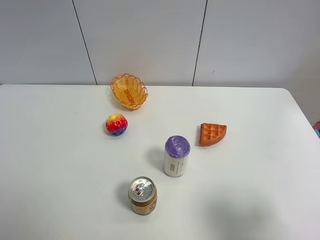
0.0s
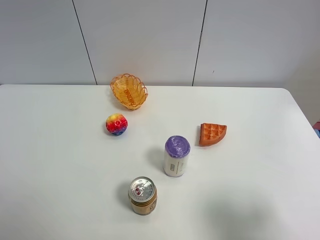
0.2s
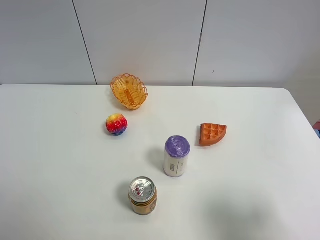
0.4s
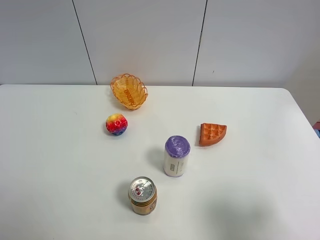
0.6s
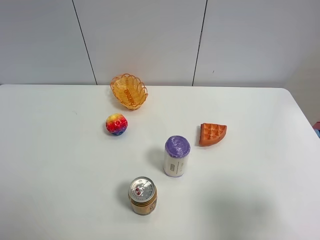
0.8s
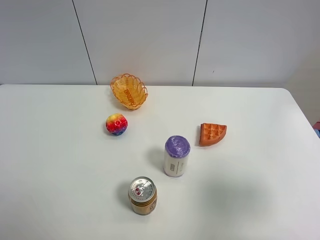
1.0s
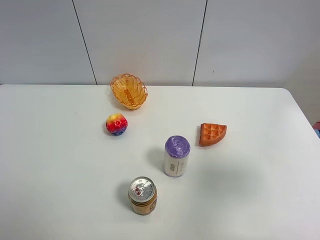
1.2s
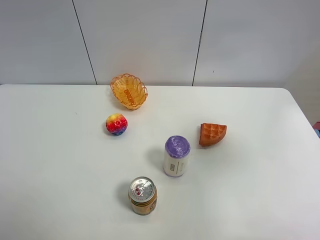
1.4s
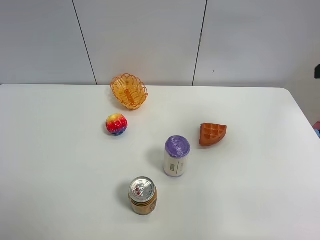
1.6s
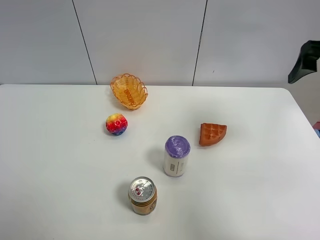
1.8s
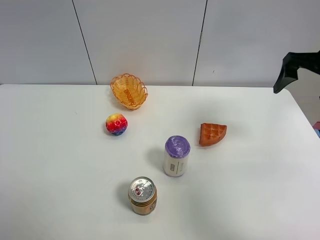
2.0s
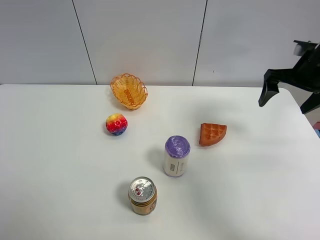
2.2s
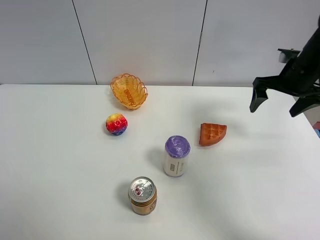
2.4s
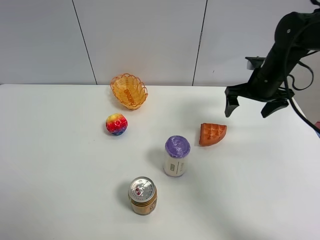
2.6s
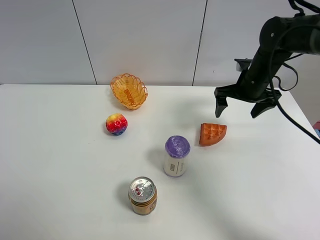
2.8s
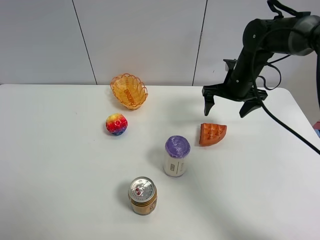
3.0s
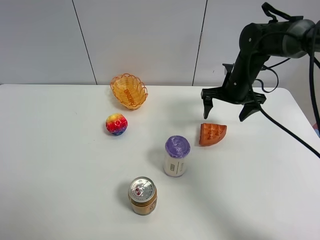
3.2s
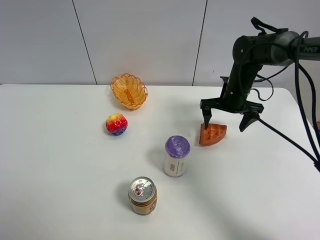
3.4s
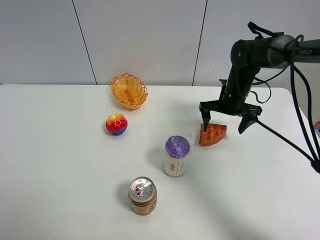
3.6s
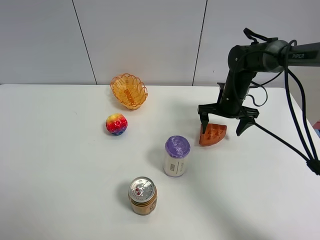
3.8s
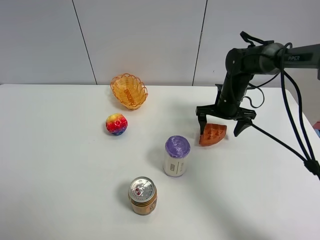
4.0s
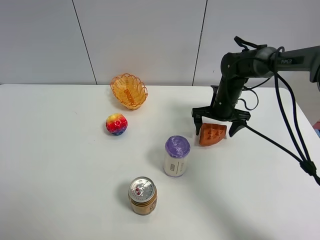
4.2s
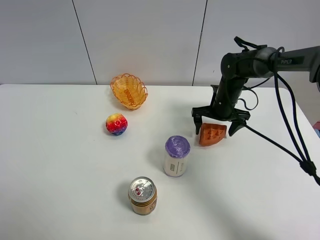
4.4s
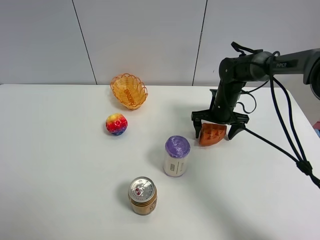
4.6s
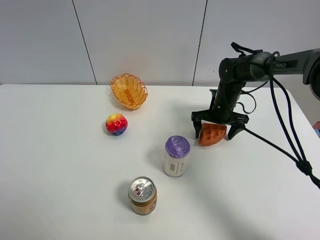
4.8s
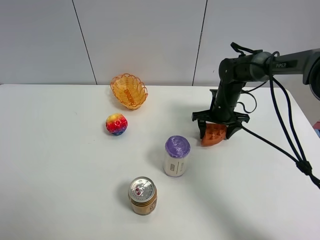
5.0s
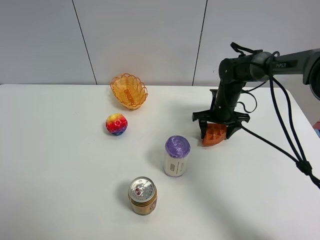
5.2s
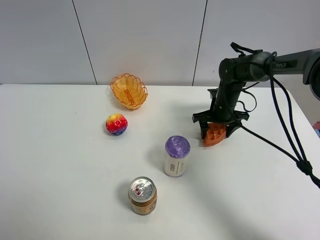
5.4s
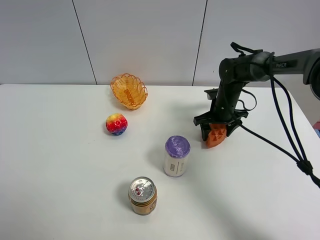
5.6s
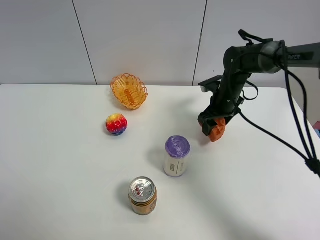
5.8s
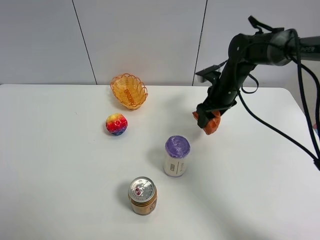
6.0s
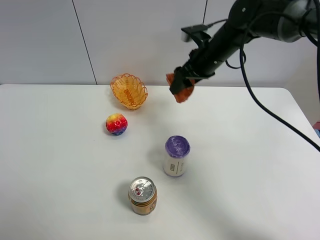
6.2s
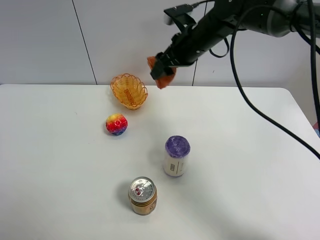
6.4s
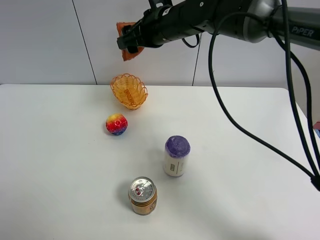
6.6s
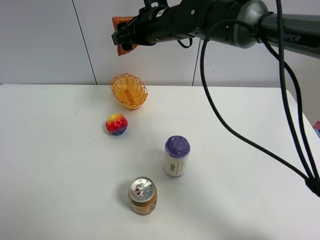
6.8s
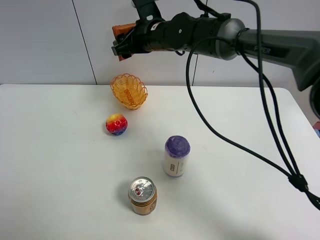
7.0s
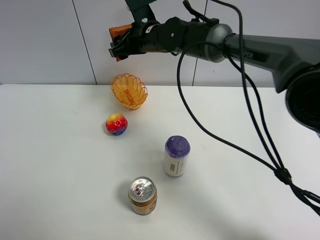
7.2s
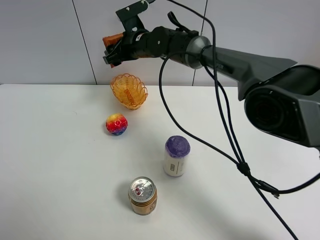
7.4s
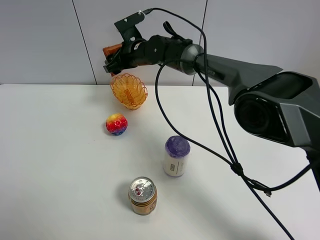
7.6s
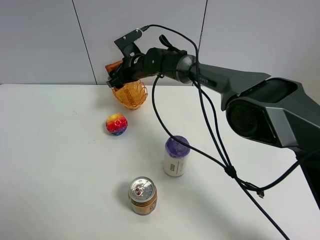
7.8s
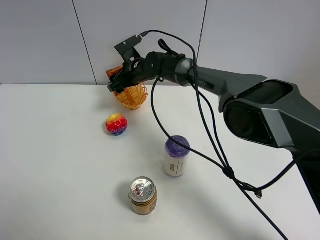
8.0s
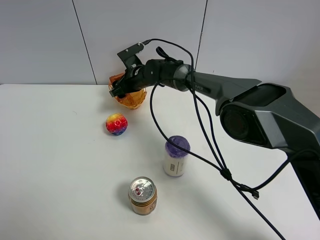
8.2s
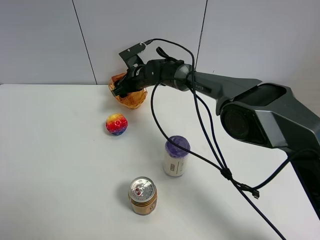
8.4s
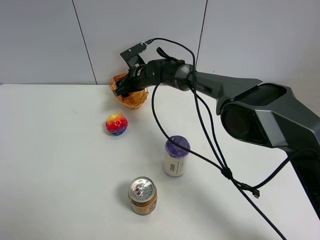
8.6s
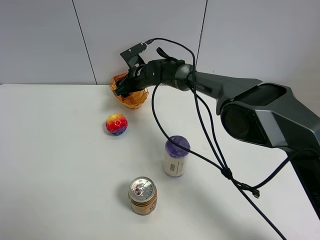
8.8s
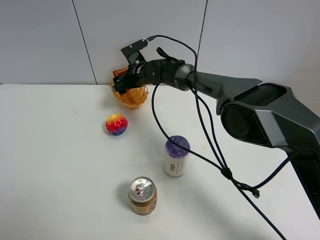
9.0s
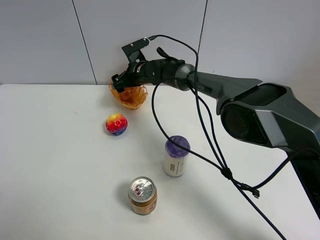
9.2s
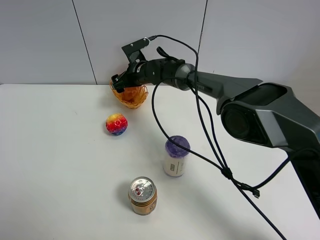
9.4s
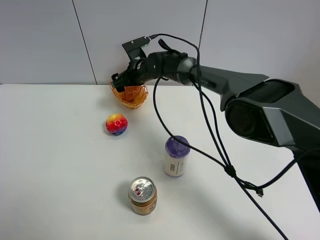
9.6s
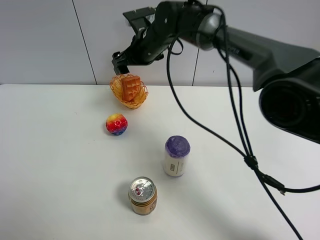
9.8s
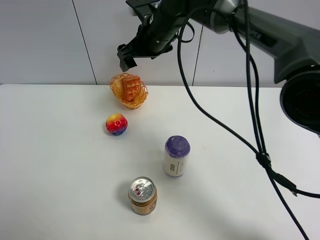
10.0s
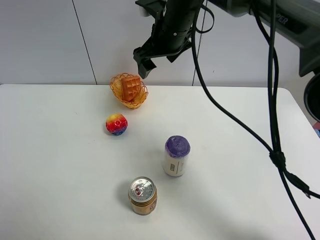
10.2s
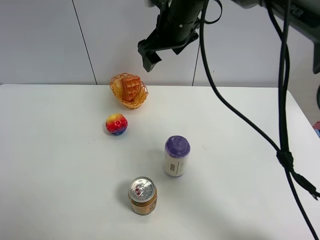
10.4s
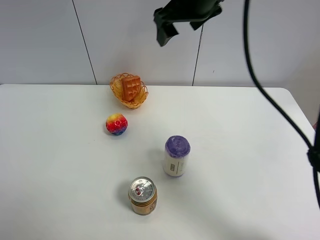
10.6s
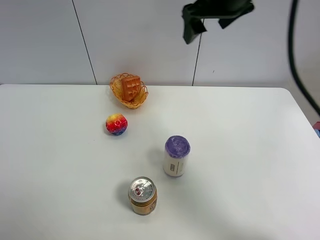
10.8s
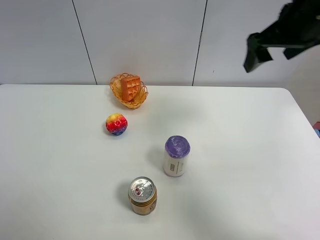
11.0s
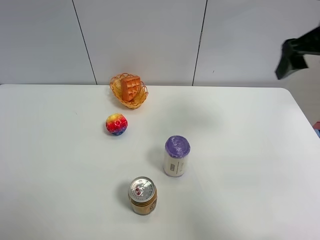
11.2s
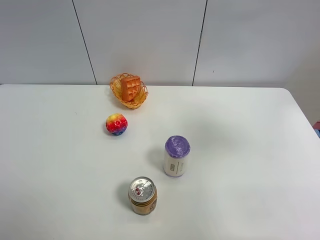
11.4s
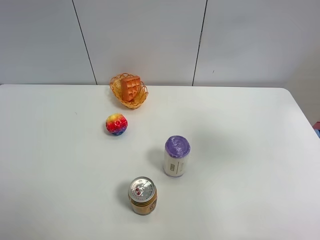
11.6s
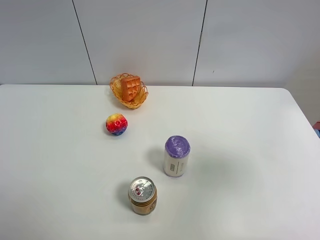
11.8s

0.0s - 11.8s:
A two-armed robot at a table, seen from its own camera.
Task of the whole recording: Put the bakery in the basket.
Step, 0.0s - 5.0s: Grasp the bread with right gripper.
Step, 5.2s - 9.8s: Place the bread in the basket with right gripper.
0.0s - 1.4s: The right gripper shifts approximately 20 cm forward and upward.
1.4s - 3.0s: The right gripper heads forward, downward and to the left, covering roughly 30 cm.
3.0s - 4.4s: The right gripper travels downward by some 10 cm.
4.4s - 6.0s: The right gripper heads upward, covering some 5 cm, and closes up.
6.0s - 7.4s: The right gripper goes roughly 20 cm to the left.
7.4s - 8.8s: The right gripper is displaced downward by about 10 cm.
8.8s - 10.4s: The right gripper is displaced upward and backward by some 25 cm, and opens up.
10.4s - 11.8s: The right gripper shifts some 40 cm backward and to the right.

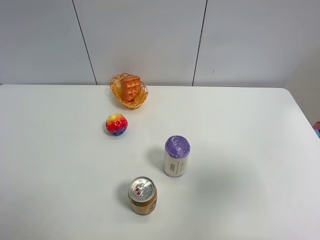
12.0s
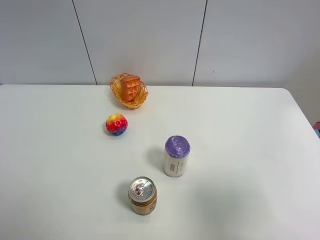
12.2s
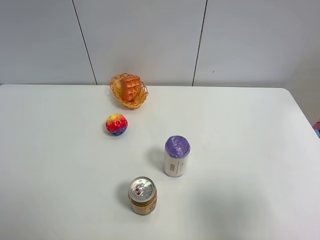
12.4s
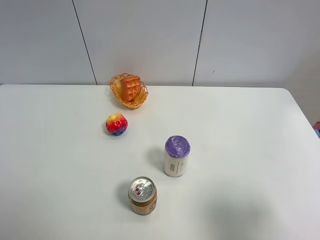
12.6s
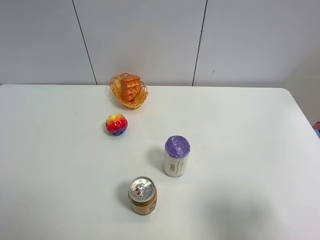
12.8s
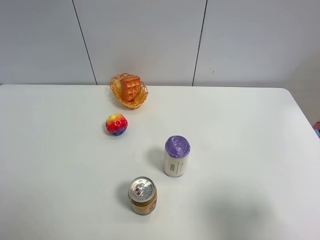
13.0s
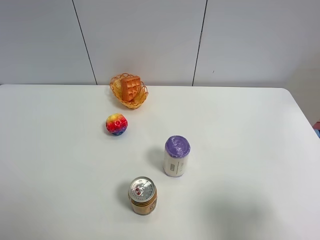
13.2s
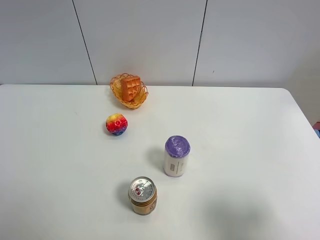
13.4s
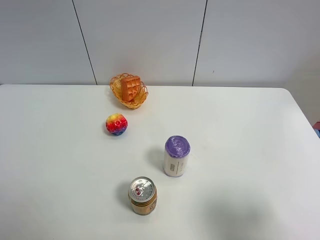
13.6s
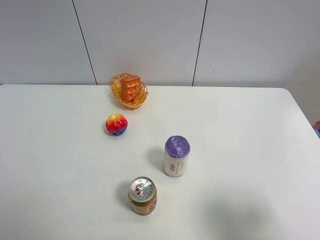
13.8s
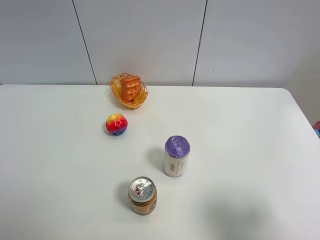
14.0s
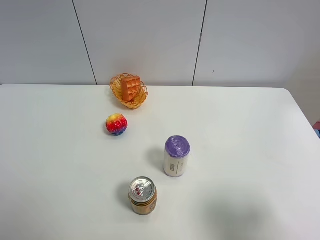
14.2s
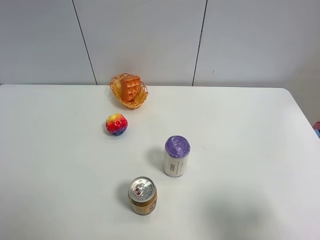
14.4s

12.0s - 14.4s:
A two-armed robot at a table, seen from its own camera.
Task of the whole recording: Put the bakery in the basket.
12.0s - 13.2s: The right gripper moves downward, approximately 10 cm.
13.2s - 14.4s: Neither gripper changes place.

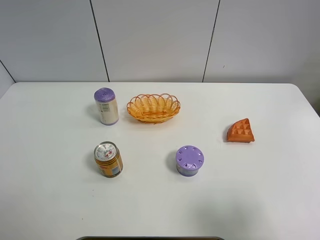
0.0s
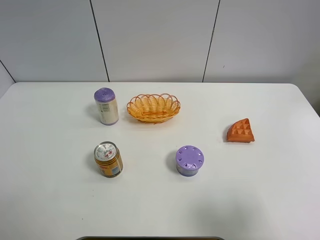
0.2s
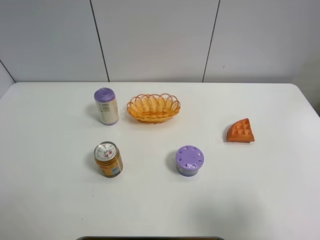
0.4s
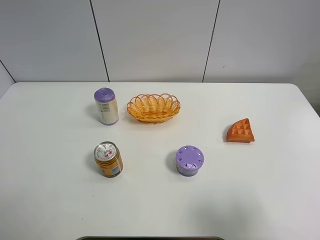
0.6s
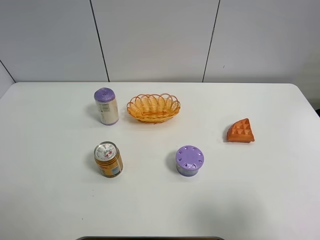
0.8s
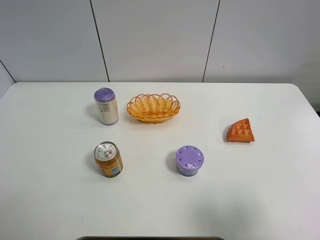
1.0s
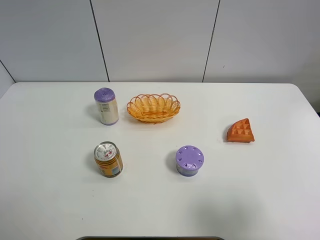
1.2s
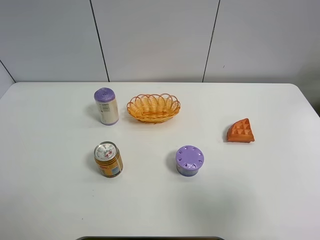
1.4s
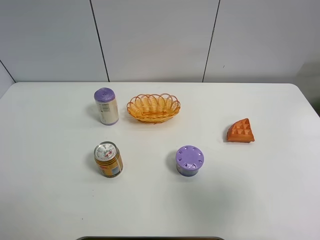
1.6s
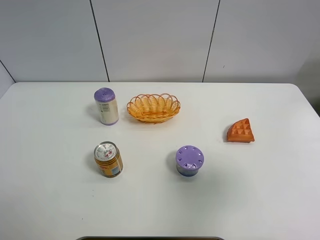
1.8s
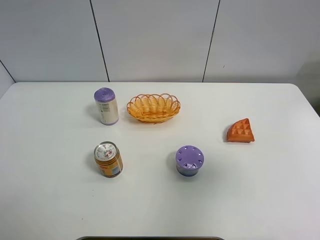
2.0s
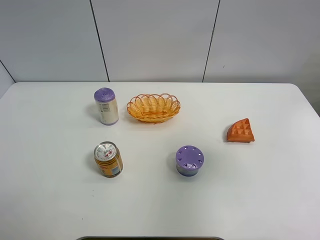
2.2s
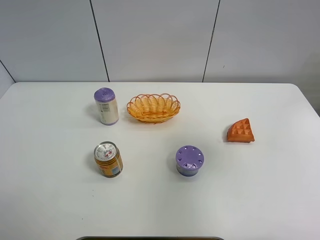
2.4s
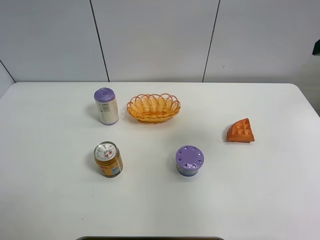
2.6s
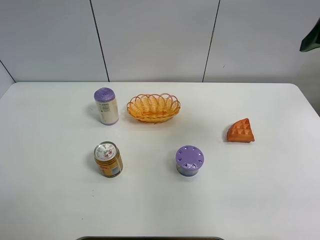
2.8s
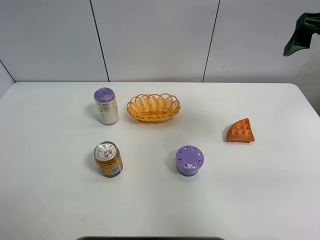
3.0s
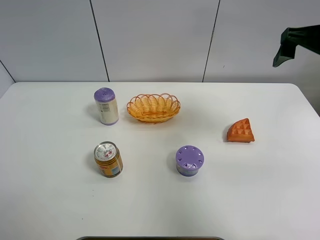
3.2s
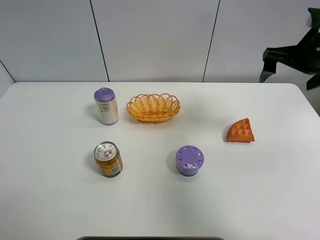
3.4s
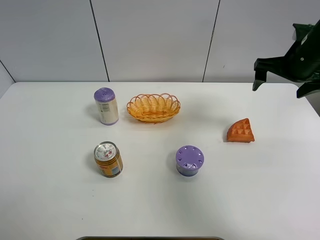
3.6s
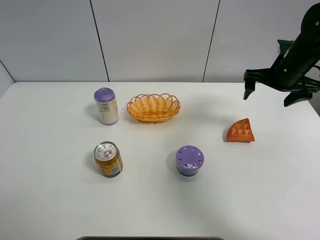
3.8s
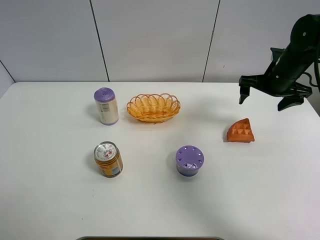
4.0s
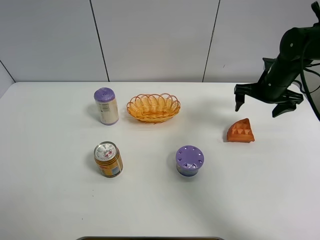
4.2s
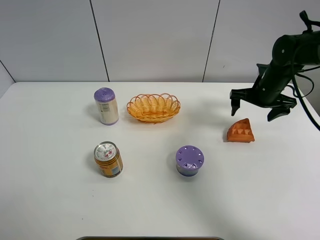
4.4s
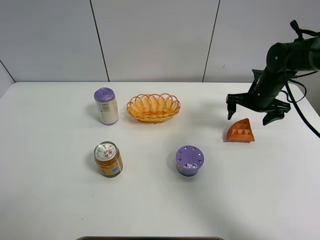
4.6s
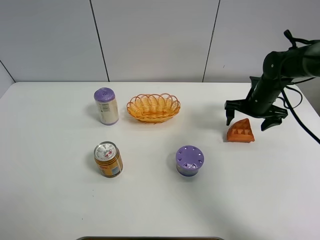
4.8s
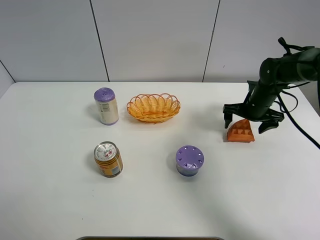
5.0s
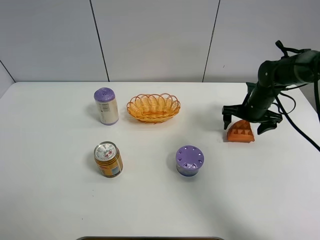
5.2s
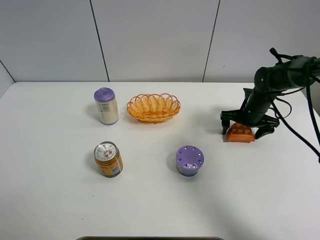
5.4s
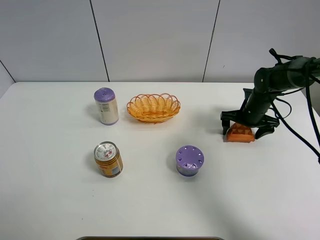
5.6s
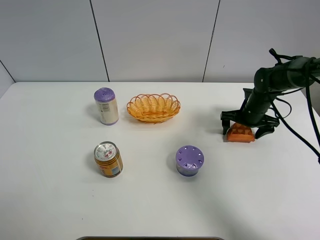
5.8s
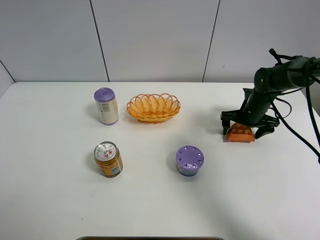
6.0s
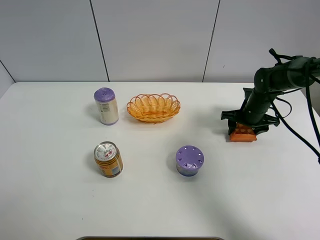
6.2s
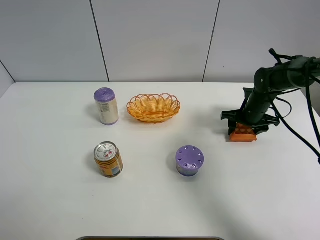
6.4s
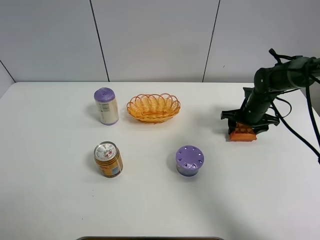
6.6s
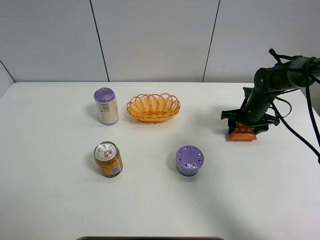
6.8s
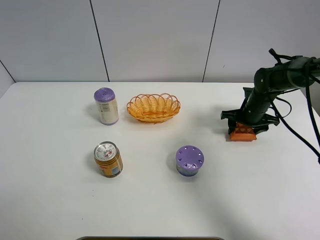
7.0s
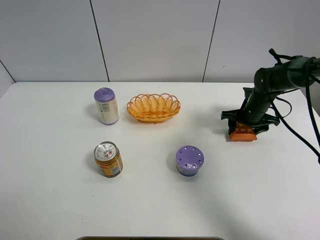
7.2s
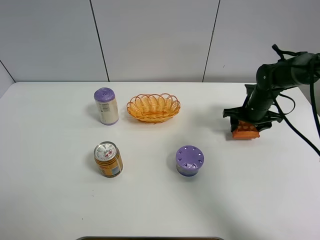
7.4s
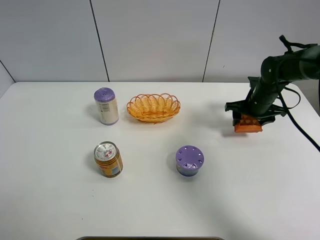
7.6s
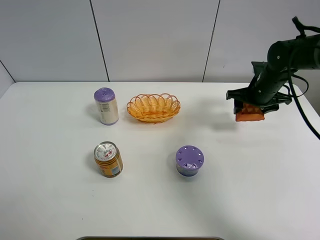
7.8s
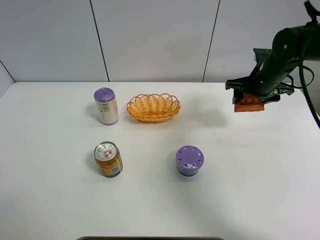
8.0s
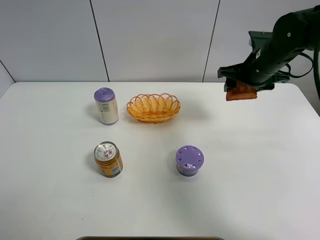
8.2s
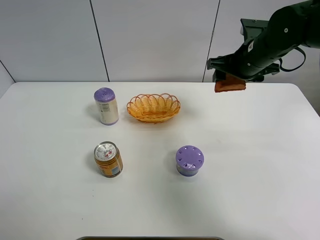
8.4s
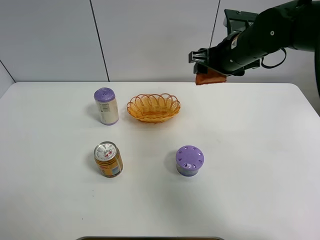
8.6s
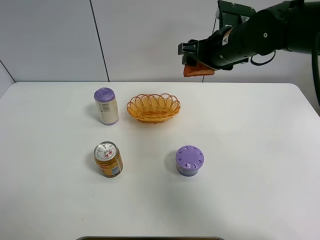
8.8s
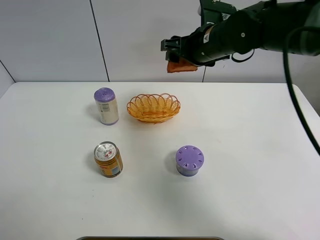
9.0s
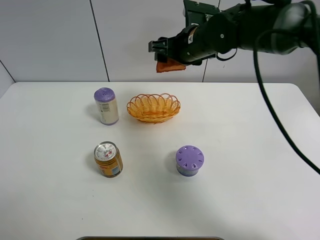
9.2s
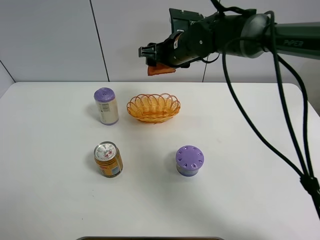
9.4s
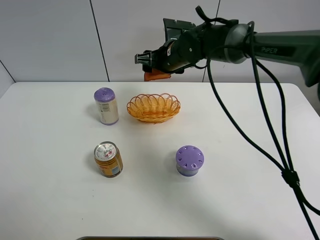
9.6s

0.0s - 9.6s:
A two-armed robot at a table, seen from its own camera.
Task of the whole recording: Put the bakery in the basket.
Step, 0.0s - 6.0s: Grasp the bread with right gripper.
0.0s - 1.6s: The right gripper is displaced upward by about 5 cm.
1.6s - 3.2s: The right gripper travels forward by approximately 25 cm.
3.2s - 4.8s: The right gripper is displaced downward and forward by roughly 25 cm.
4.8s - 6.4s: The right gripper closes its fingers.
6.4s - 8.0s: The right gripper goes about 10 cm upward.
8.0s - 9.6s: The right gripper moves to the left, approximately 20 cm.
